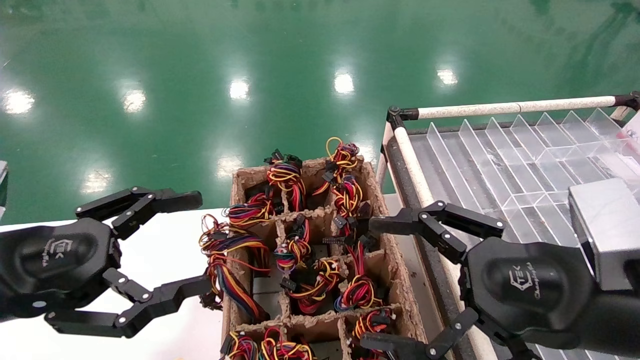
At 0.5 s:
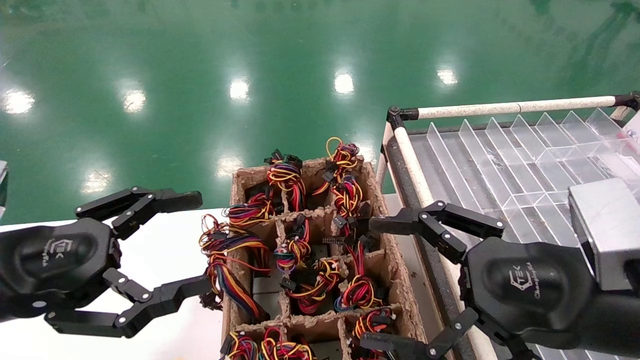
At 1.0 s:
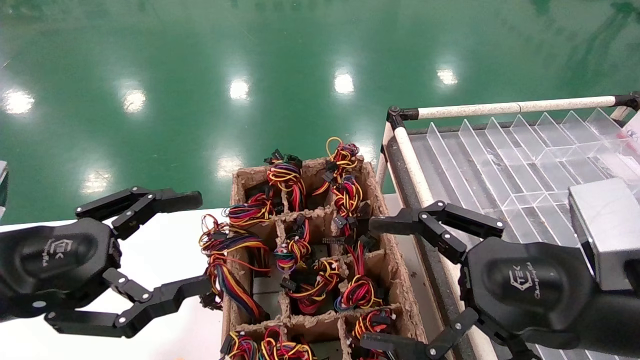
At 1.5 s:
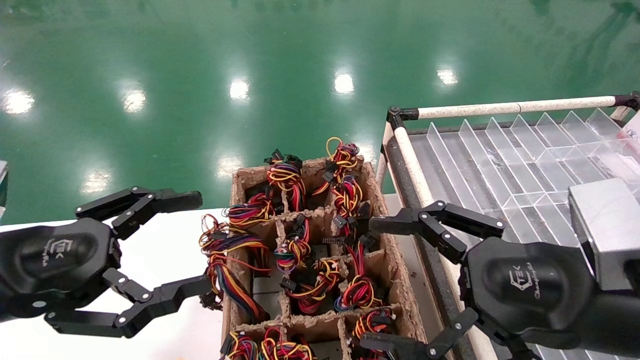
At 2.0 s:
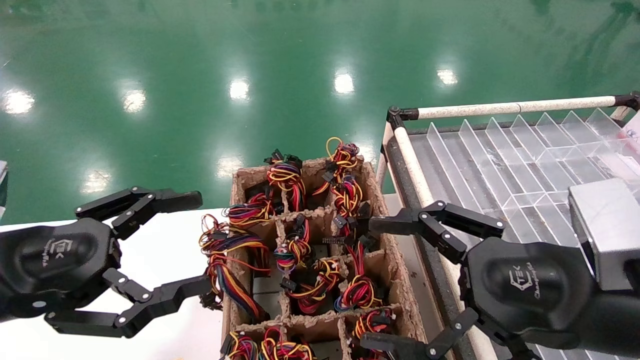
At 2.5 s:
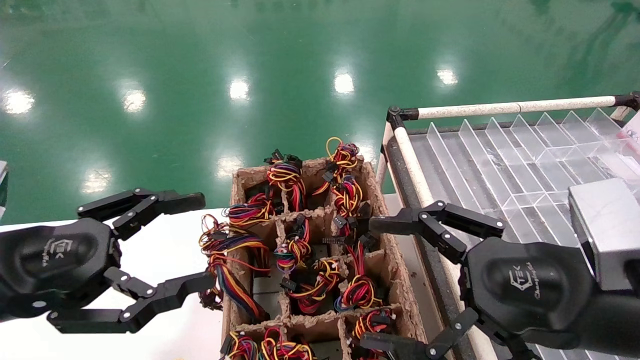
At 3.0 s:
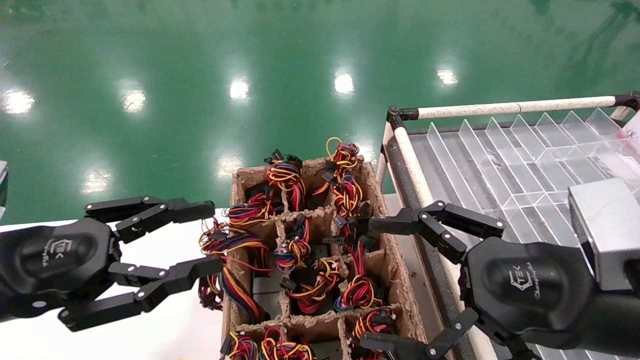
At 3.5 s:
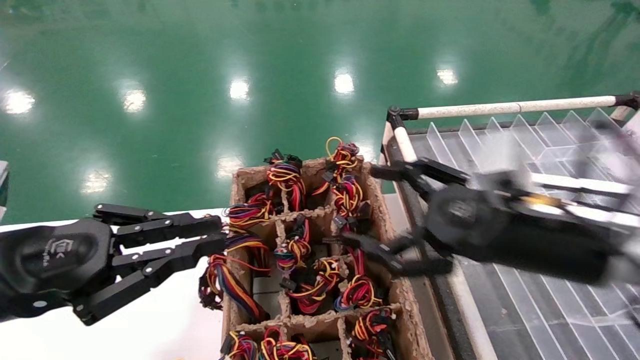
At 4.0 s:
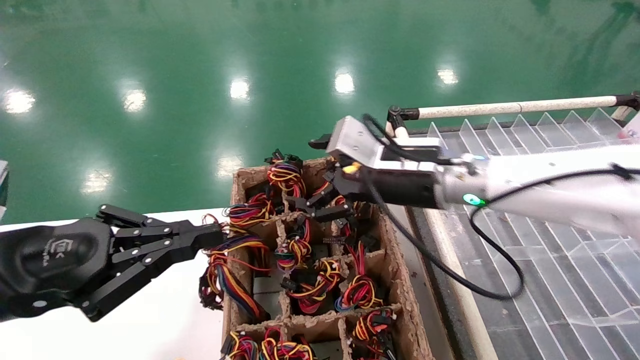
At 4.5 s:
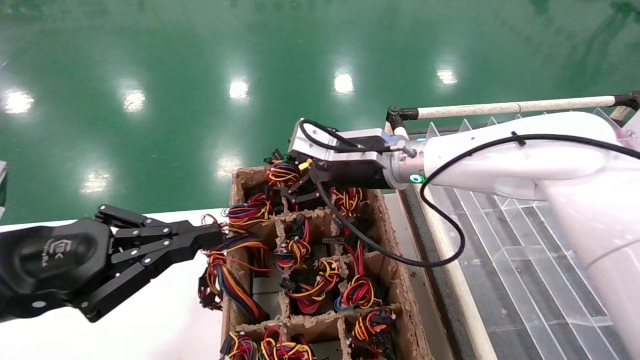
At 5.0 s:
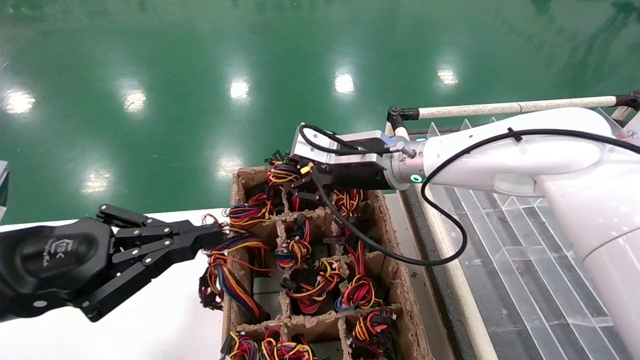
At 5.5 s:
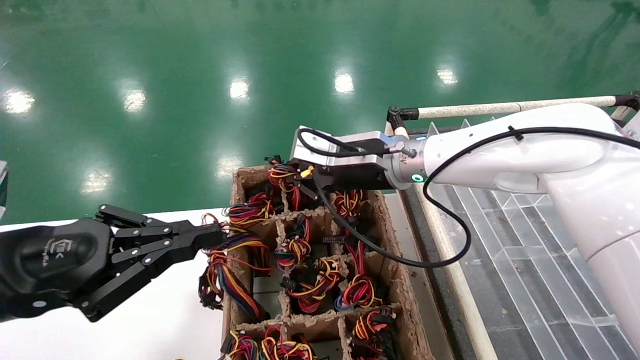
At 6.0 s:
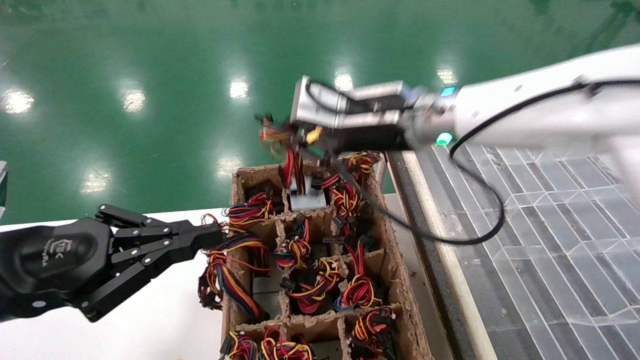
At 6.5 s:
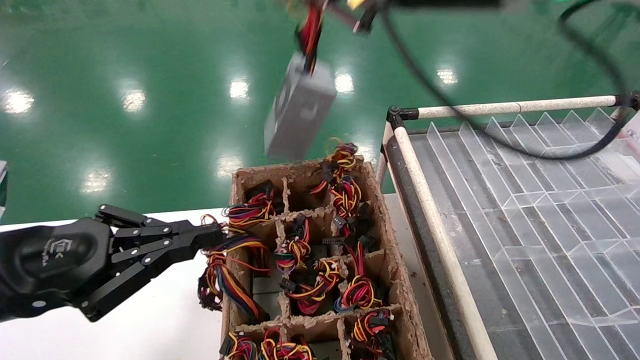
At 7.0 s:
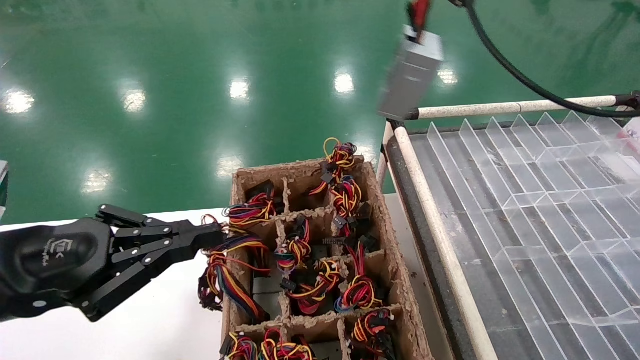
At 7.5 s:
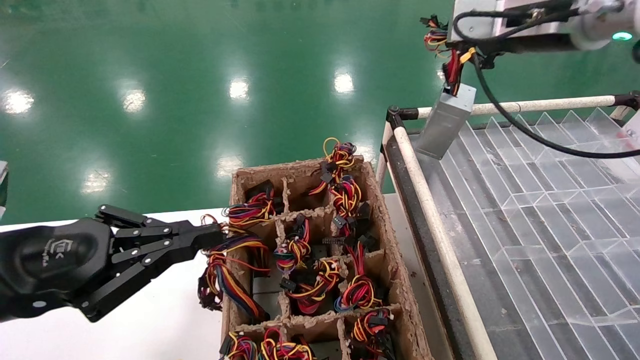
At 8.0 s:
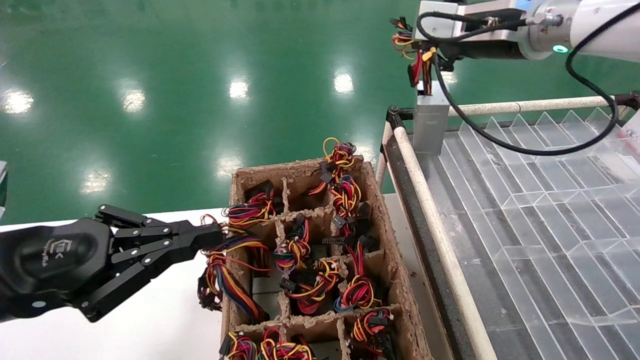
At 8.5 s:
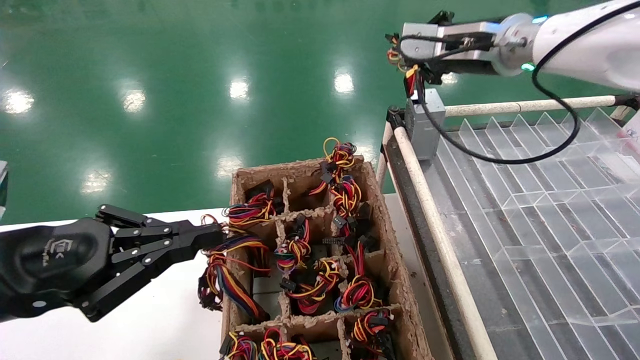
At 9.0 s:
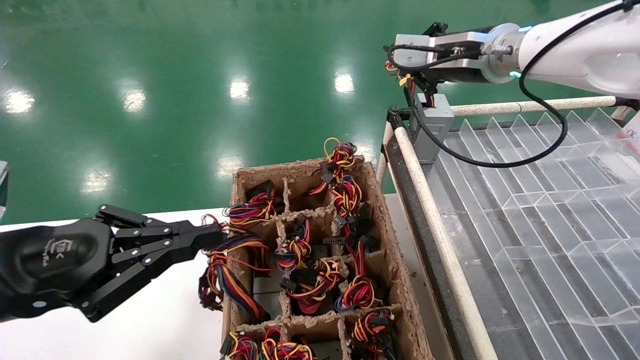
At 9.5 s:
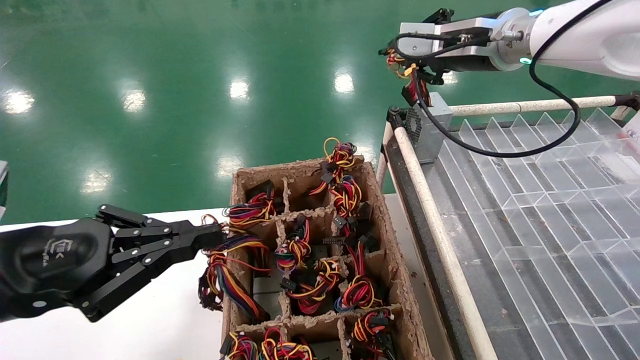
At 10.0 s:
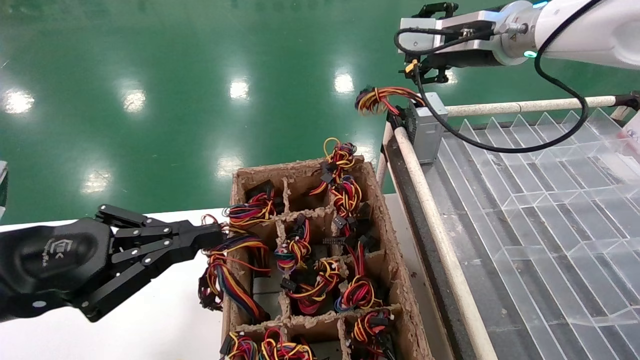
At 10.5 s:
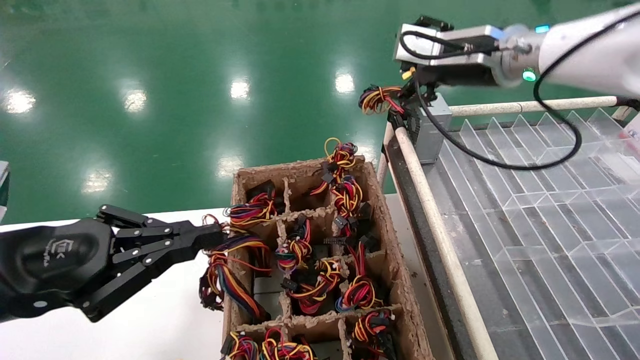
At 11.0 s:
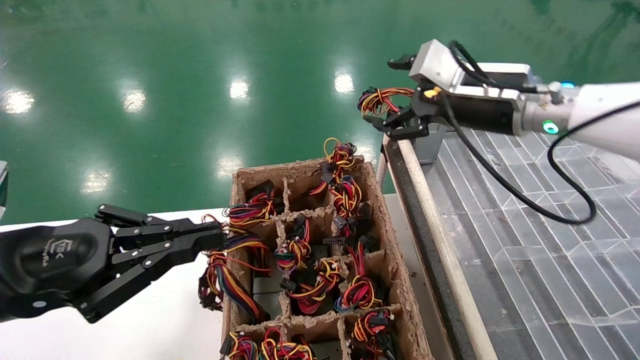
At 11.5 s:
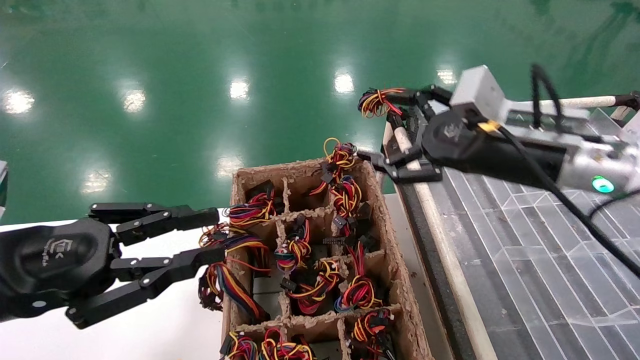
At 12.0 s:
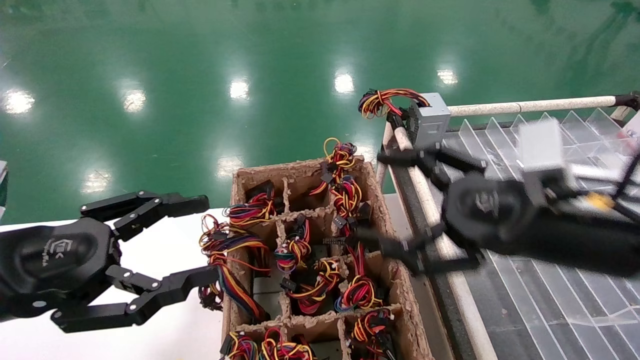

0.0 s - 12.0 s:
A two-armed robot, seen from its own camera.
Step, 3.5 s - 5.5 s: Grab the main unit power supply from the containment box.
Step, 6.0 s - 9.5 s: Place the main unit power supply in the designated area.
0.0 s - 2.0 s: Both grippers stay about where they are.
2.0 s - 4.0 s: The left gripper closes up. Meanwhile the right gripper shifts some 20 cm forward and to the left.
4.0 s - 6.0 s: The right gripper shifts about 10 cm upward, and closes up.
6.0 s - 8.0 s: The right gripper moves to the right and upward, about 15 cm.
8.0 s - 10.0 s: The right gripper opens its fingers.
10.0 s - 12.0 s: The right gripper travels backward and downward by roughly 25 cm, and opens its fingers. Meanwhile the left gripper opens its fingers.

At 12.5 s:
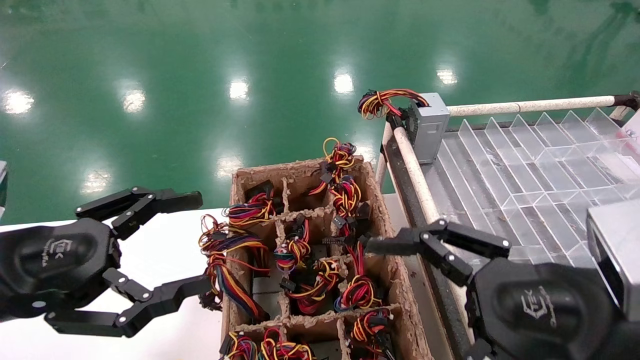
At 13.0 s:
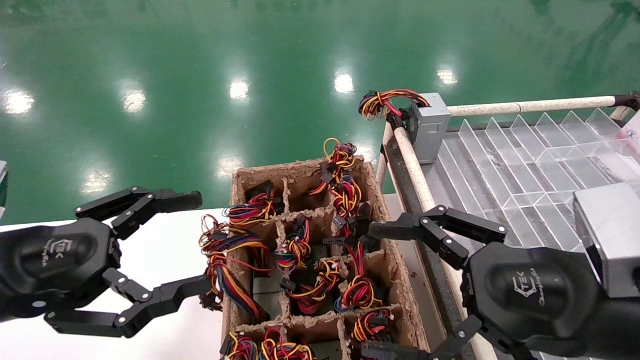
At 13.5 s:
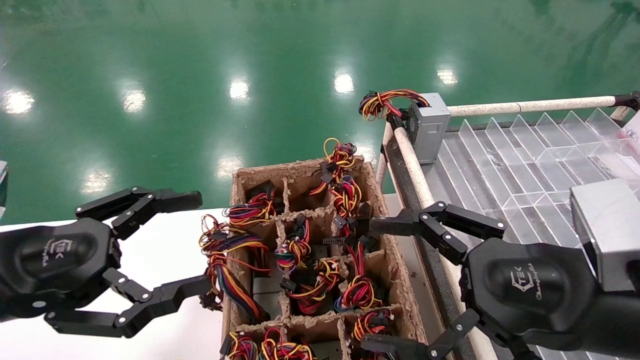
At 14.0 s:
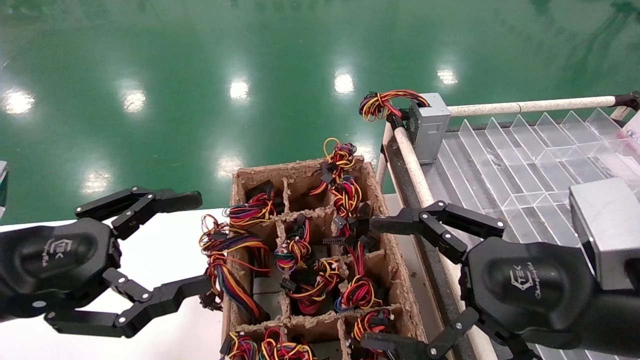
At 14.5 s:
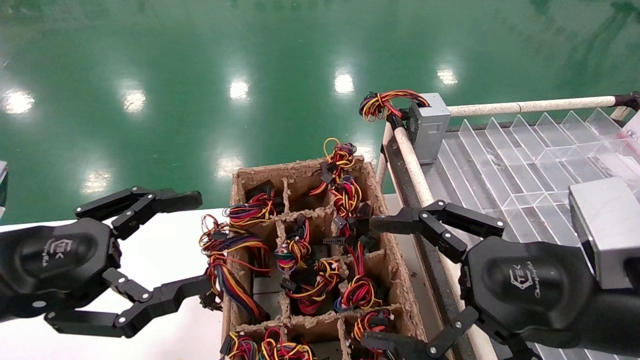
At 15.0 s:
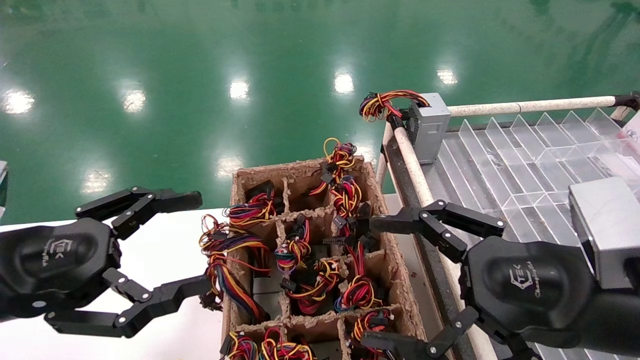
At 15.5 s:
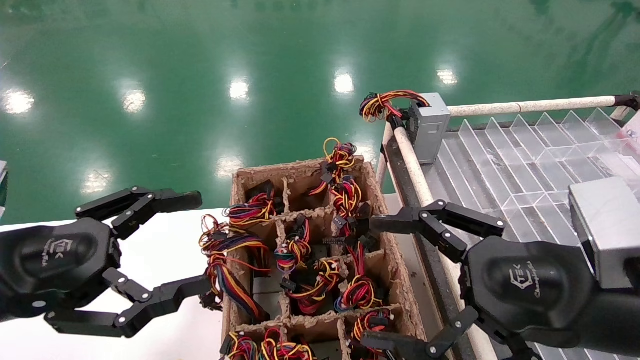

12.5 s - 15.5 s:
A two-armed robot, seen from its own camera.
12.5 s - 15.5 s: Neither gripper changes place.

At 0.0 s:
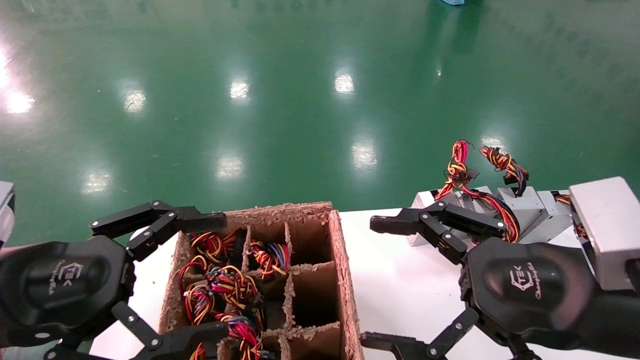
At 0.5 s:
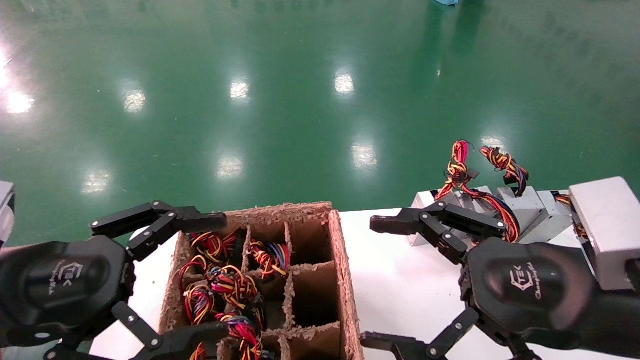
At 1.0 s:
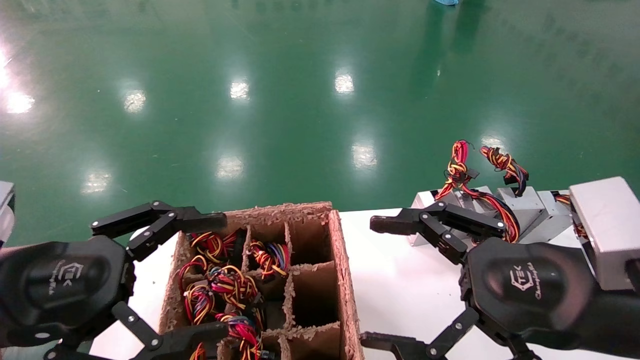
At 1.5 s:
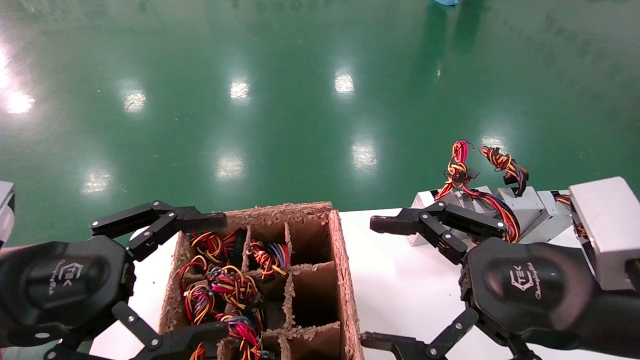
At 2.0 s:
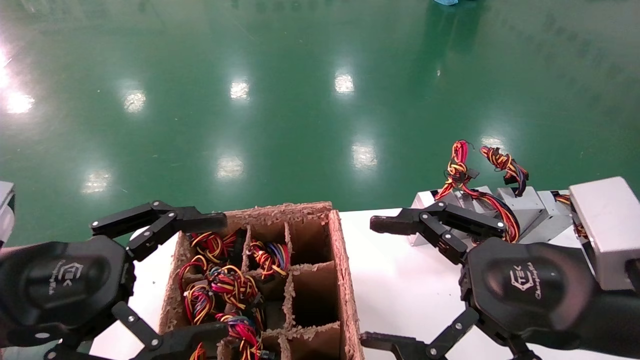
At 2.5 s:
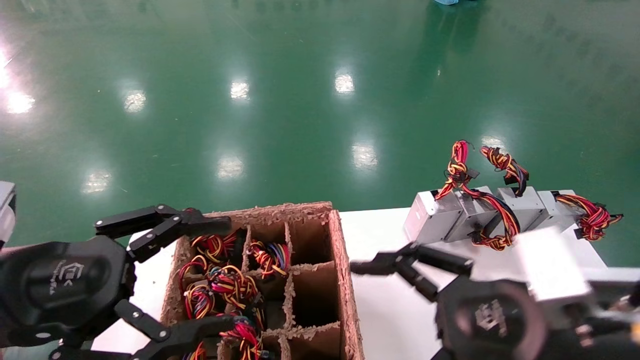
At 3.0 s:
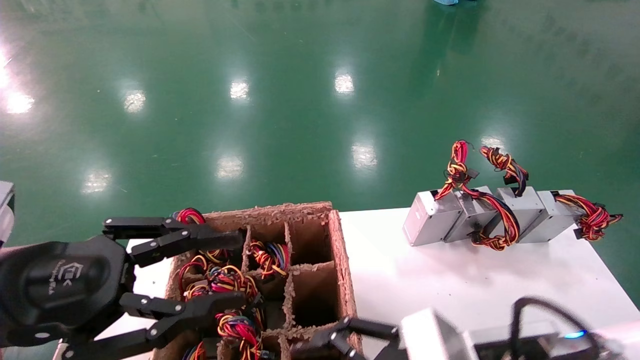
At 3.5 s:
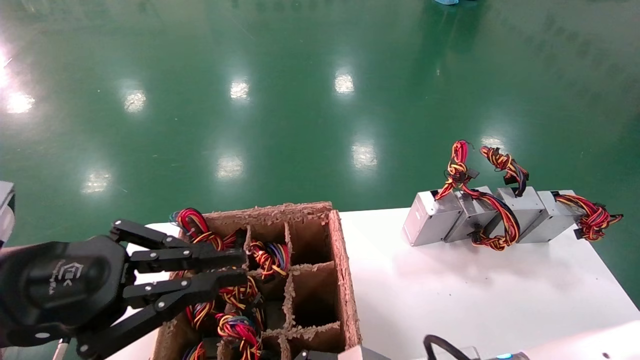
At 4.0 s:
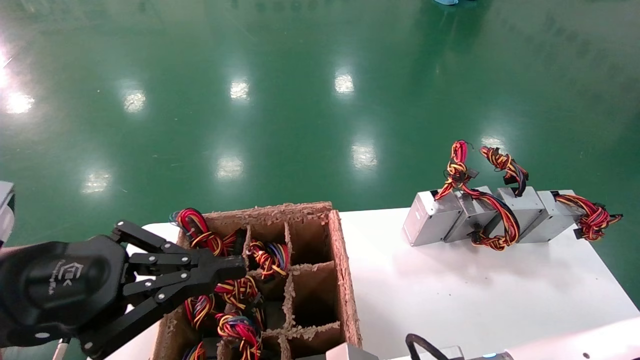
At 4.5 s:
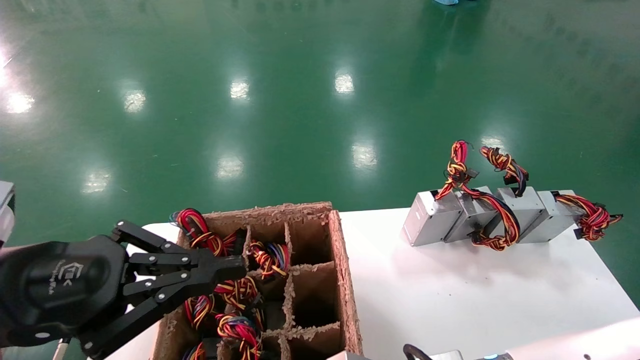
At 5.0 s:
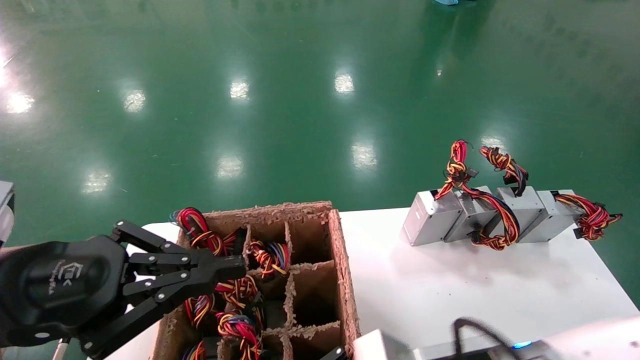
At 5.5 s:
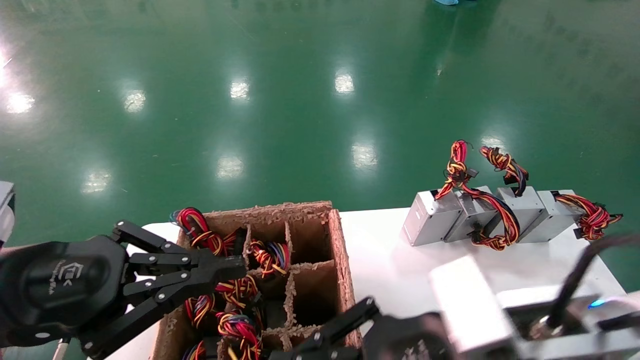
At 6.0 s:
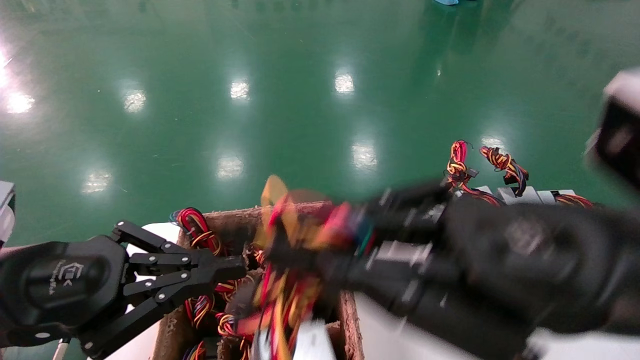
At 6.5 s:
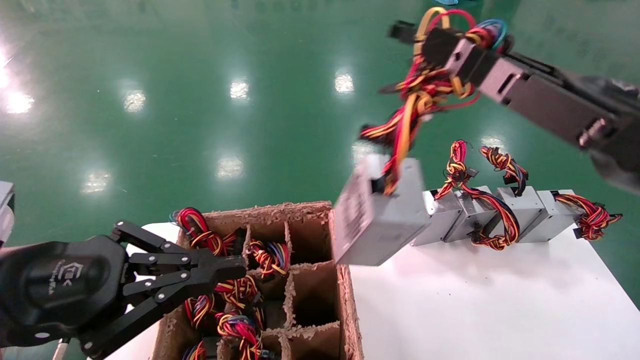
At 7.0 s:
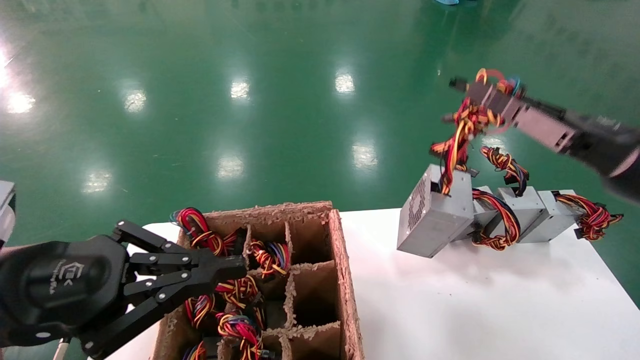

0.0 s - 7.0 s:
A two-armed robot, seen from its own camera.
Step, 3.0 s - 4.5 s: Grab the main unit power supply from the containment box.
0.0 s - 2.0 s: The two grippers keep their place.
2.0 s - 3.5 s: The right gripper heads downward and to the left, covering about 15 cm, while the left gripper closes up.
3.5 s - 5.0 s: The right gripper closes up.
5.0 s - 7.0 s: The right gripper heads to the right and upward, covering some 25 cm.
